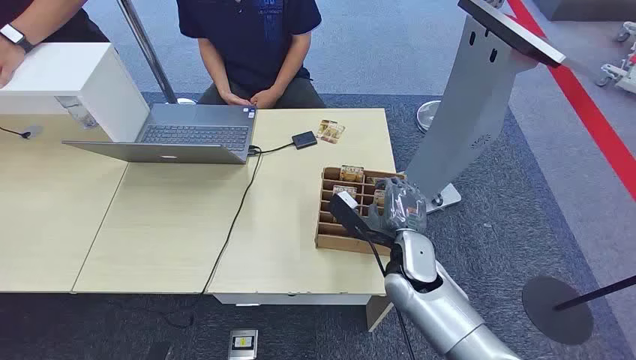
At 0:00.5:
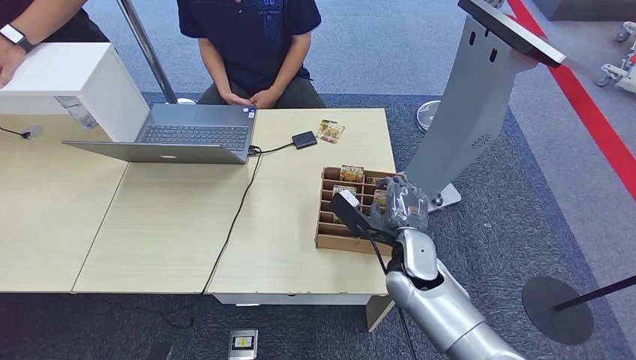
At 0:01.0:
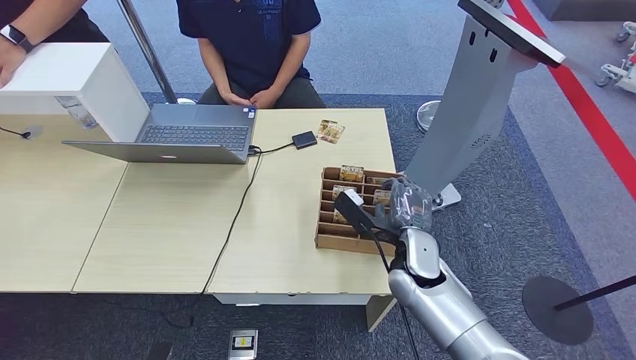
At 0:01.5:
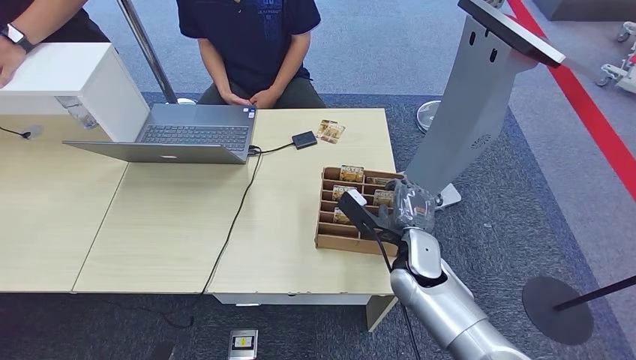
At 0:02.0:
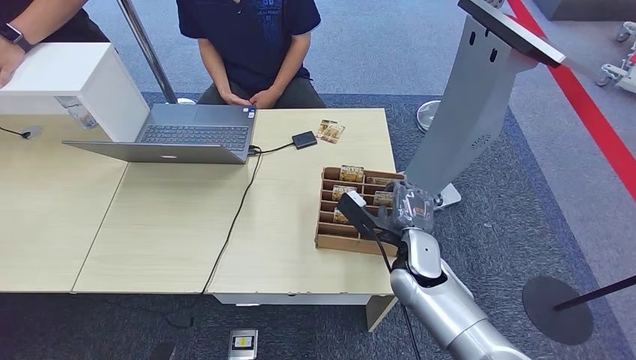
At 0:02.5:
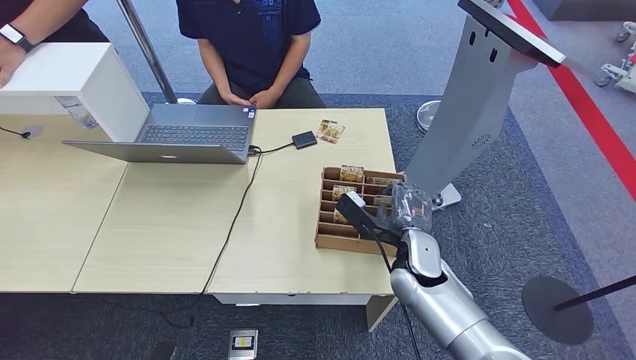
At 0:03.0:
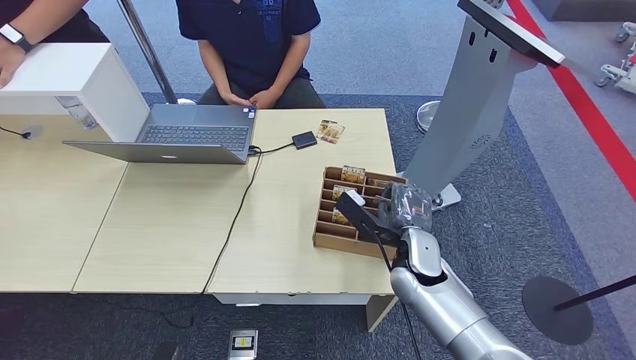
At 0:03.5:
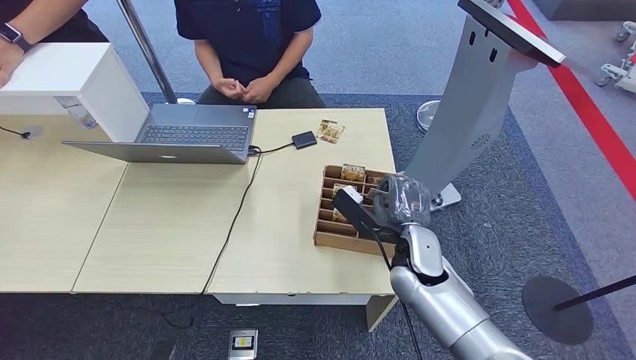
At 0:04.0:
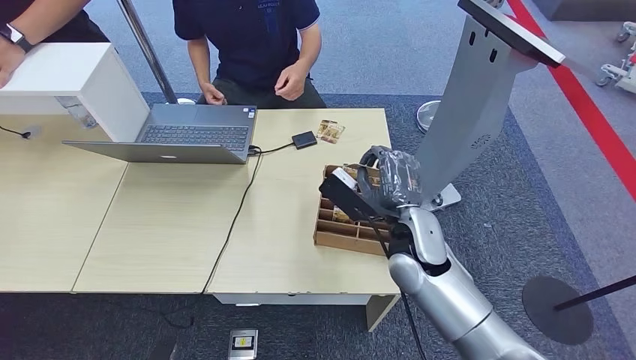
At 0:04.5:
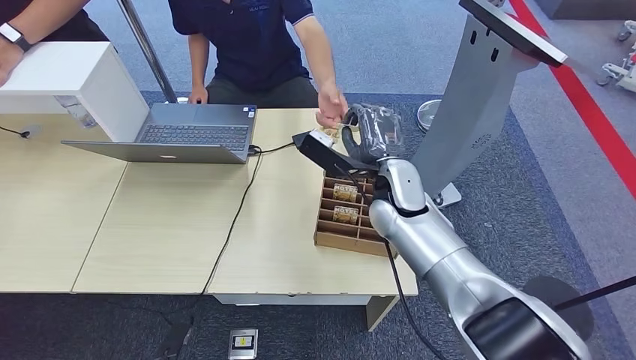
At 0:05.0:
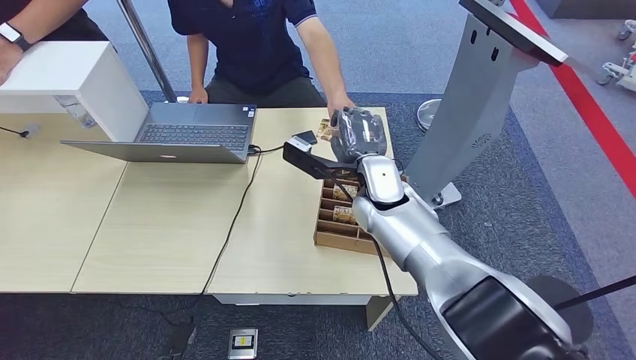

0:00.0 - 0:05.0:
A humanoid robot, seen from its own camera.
Step, 0:00.0 - 0:04.0: Pick up the key card from the card box.
Step, 0:04.5 - 0:05.0: Hand the key card to the target.
0:02.5 - 0:05.0: The right hand goes approximately 15 cm upward, forward and to the left.
